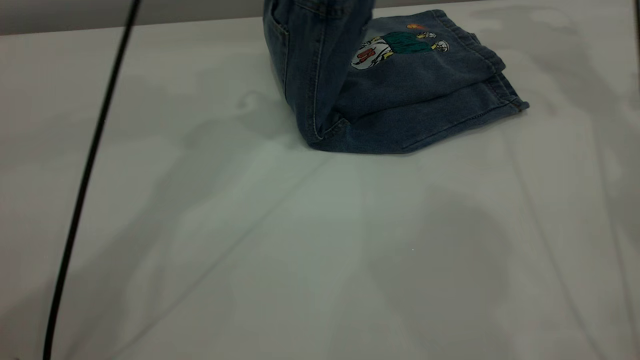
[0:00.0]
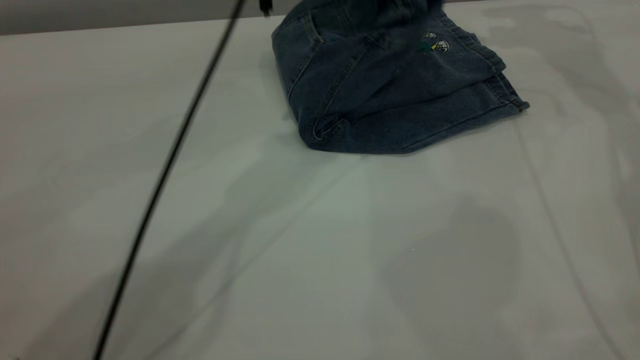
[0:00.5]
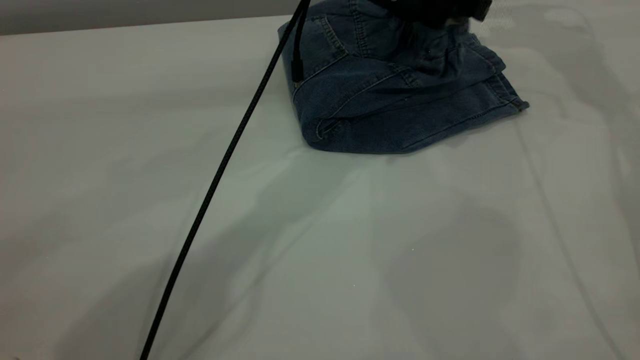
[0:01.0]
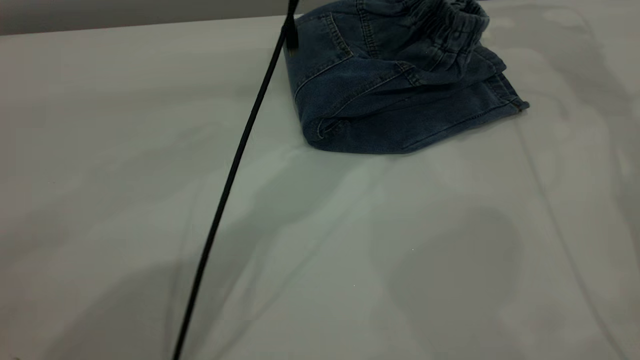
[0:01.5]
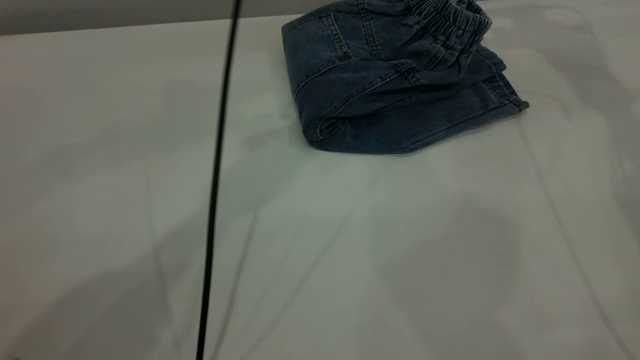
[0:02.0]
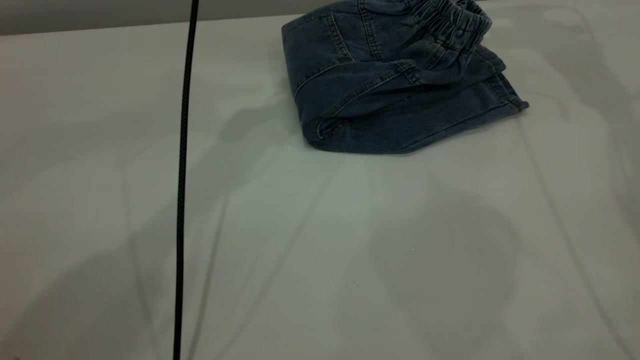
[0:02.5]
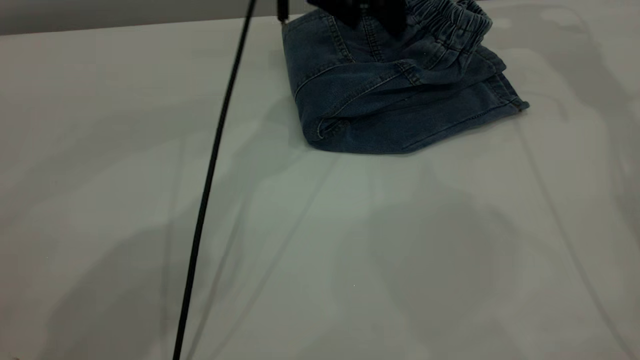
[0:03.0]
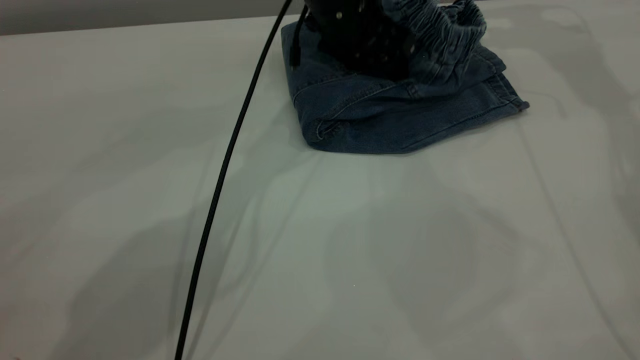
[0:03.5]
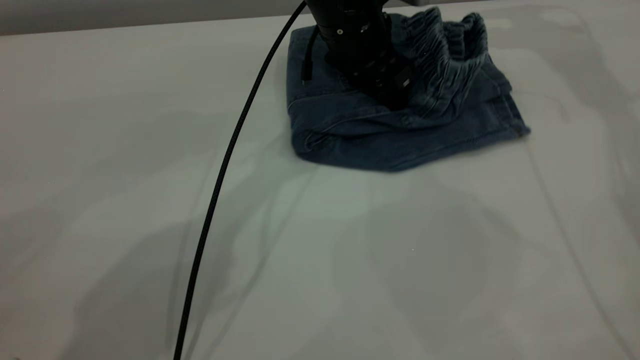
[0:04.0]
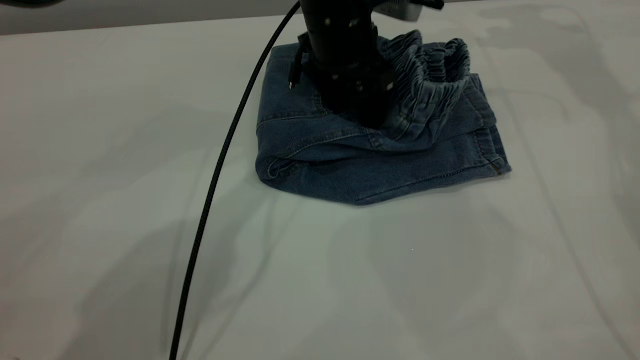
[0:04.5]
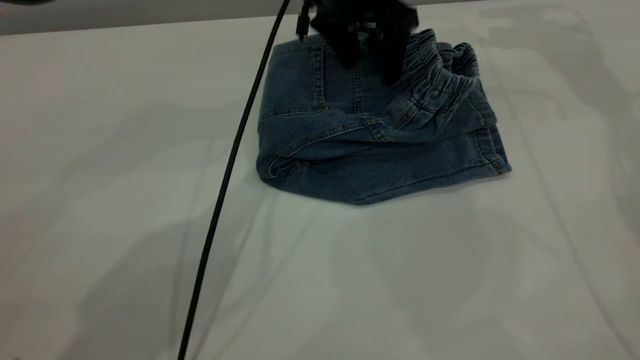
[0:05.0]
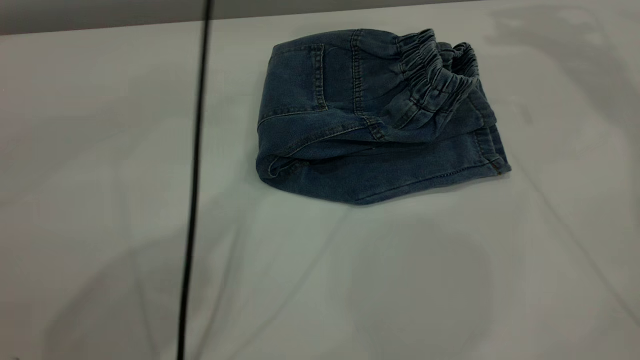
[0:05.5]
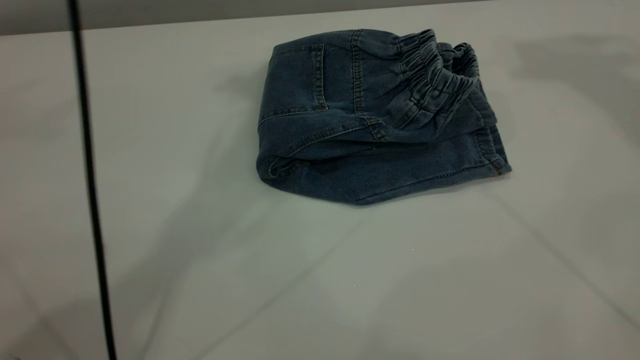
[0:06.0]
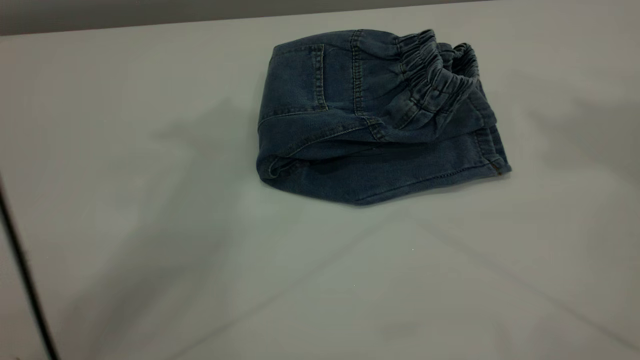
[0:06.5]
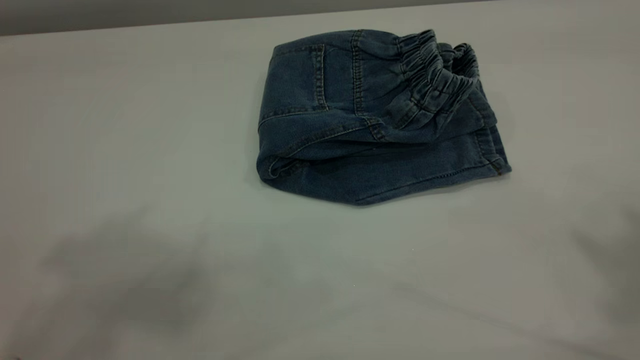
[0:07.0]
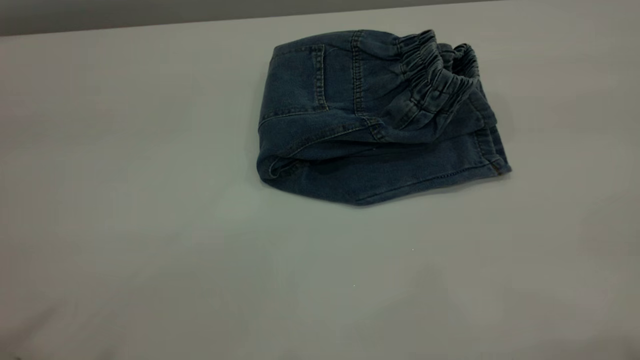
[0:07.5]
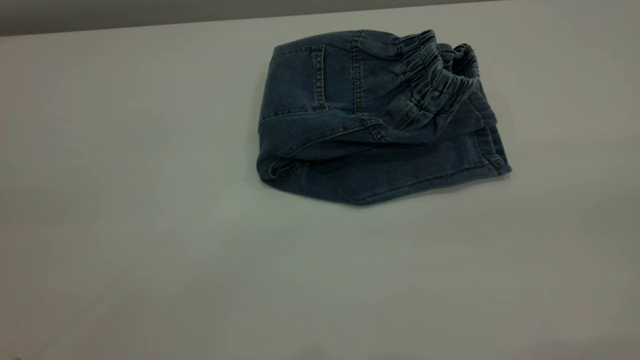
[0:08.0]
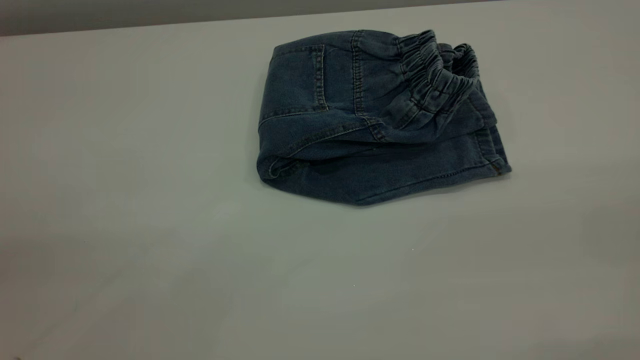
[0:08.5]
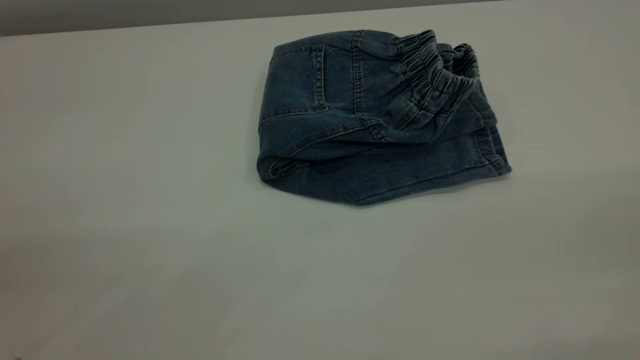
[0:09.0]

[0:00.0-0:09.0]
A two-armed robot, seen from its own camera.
0:00.0 to 0:02.0: The left gripper reaches some 10 cm downward, then returns, and opens its fingers.
0:02.0 to 0:04.5: The left gripper travels downward by about 15 cm.
0:04.5 to 0:07.0: The right gripper travels backward and upward by roughly 50 cm, while the left gripper is displaced upward, backward and to the left by about 50 cm.
